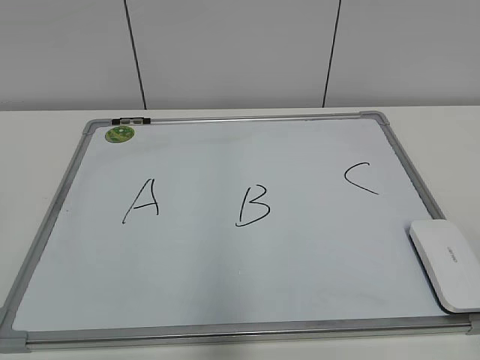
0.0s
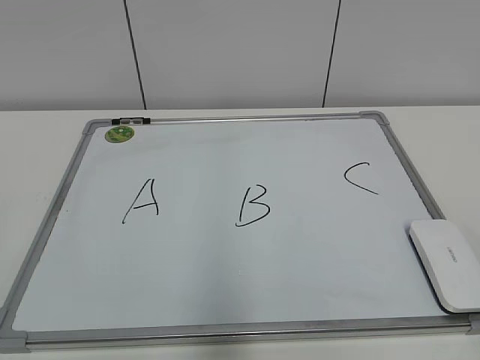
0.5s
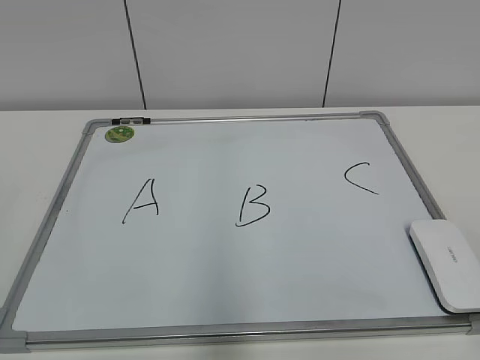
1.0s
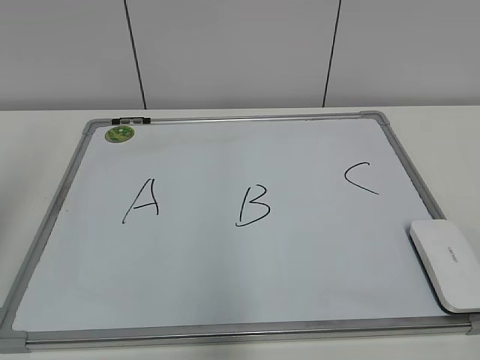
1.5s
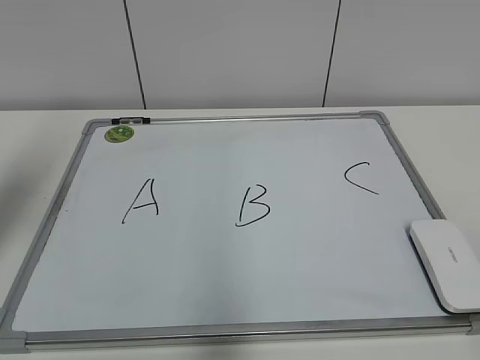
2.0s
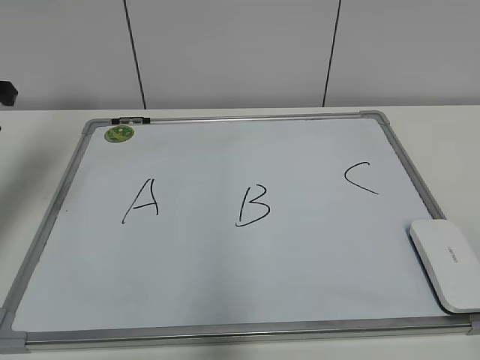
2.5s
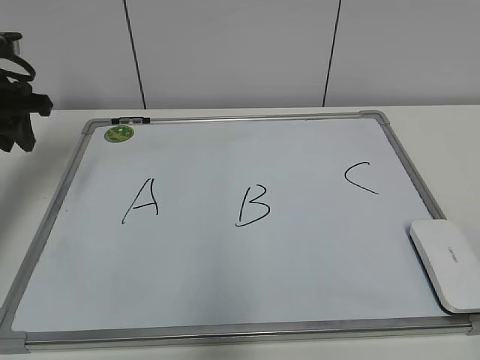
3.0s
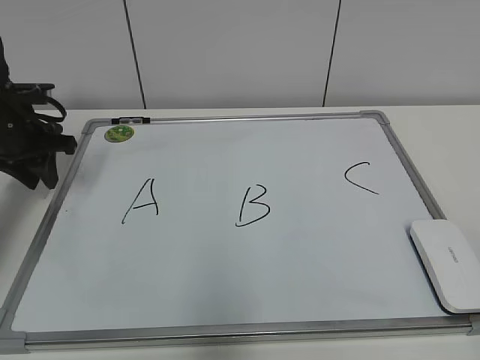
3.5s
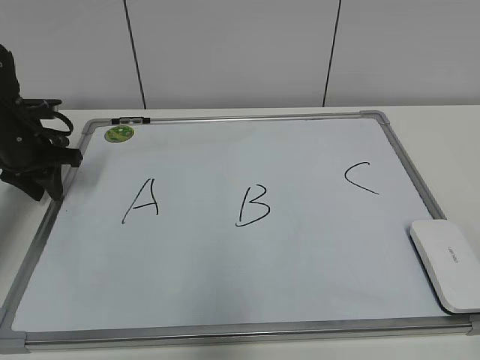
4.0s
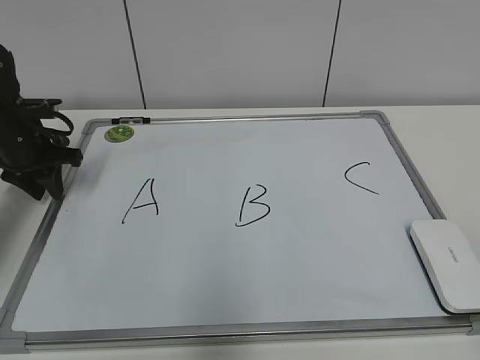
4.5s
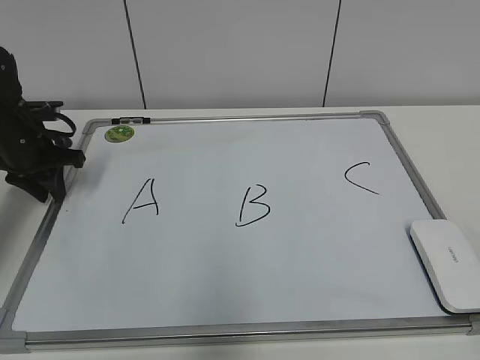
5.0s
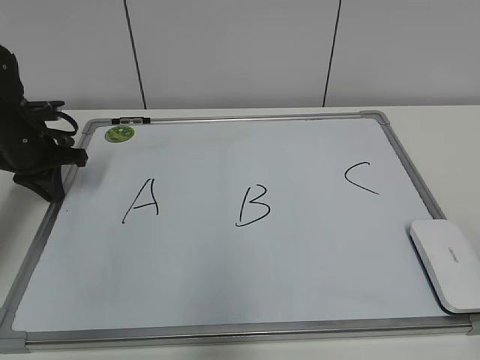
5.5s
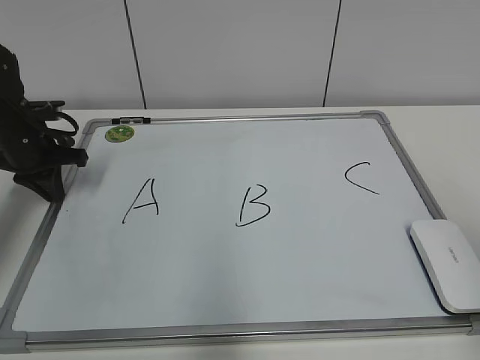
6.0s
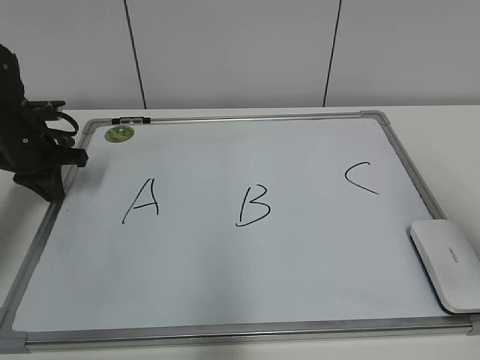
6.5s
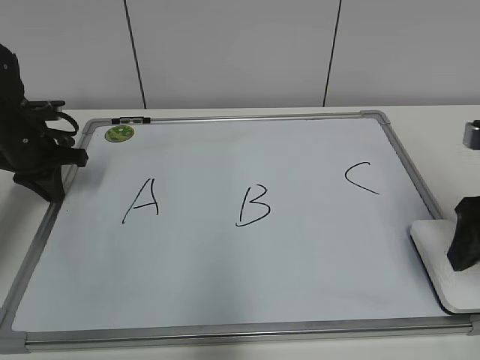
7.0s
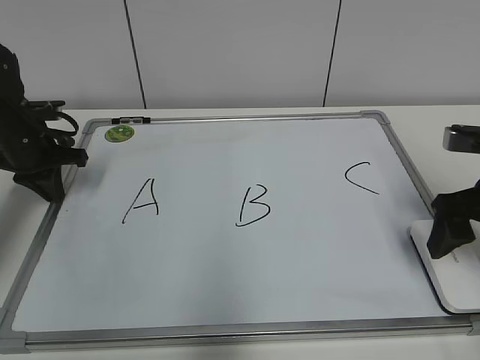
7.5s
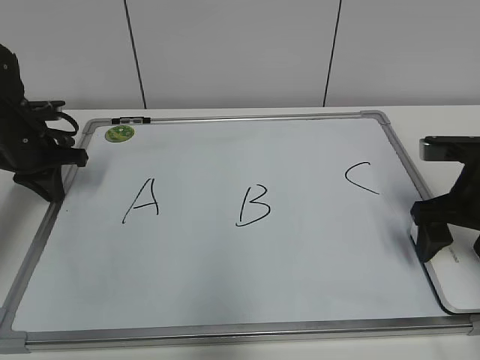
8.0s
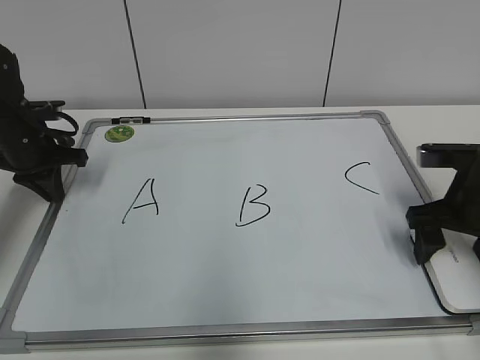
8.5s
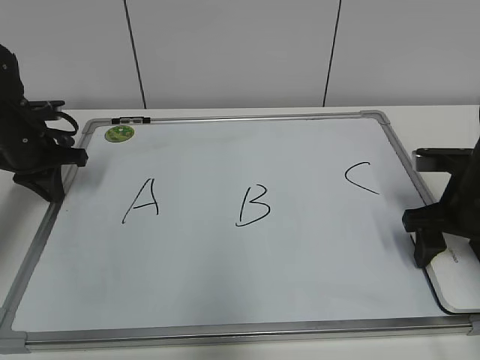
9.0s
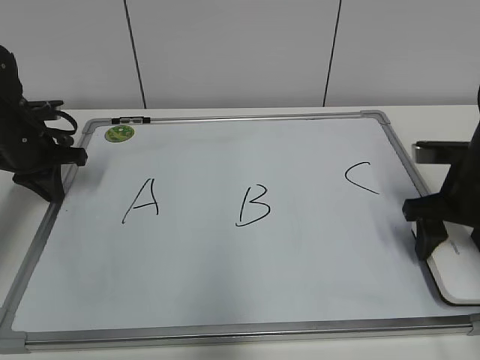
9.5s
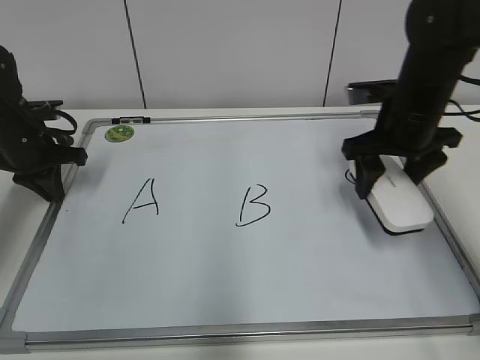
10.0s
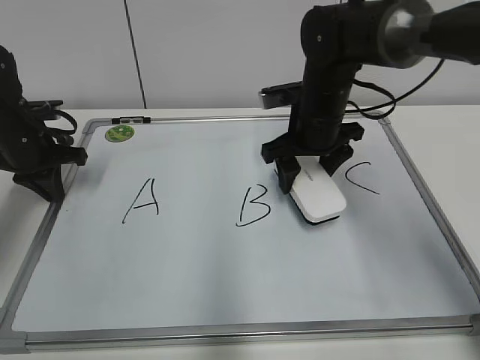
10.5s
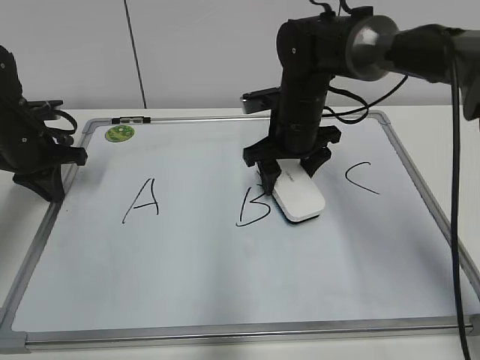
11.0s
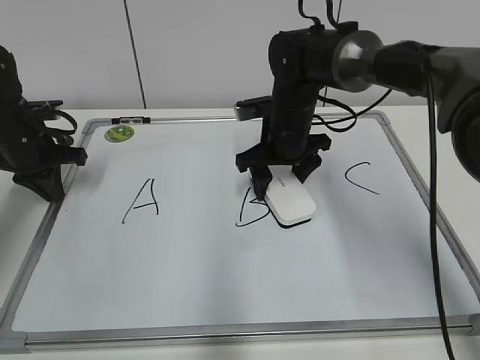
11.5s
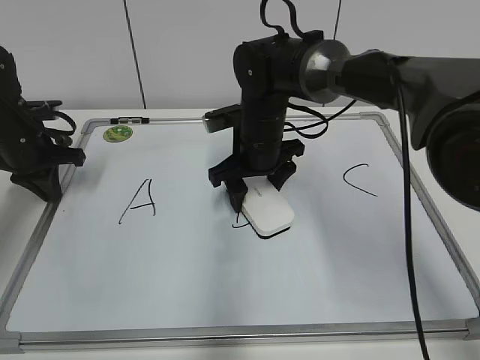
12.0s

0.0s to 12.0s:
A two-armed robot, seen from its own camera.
Task of the whole recording: pick up the eraser on the blackboard and erase the letter "B".
Step, 0.0s to 5.5s: Hold the drawing board steady with your left hand.
Step, 6.0s to 9.0s: Grab the eraser with your right hand.
2.0s to 4.0s: The left gripper shifts approximately 20 cm downward and forward.
4.0s to 6.0s: The left gripper closes up.
6.0s to 8.0s: The right gripper is displaced forward and downward by roughly 25 cm, and opens its fingers.
8.0s to 10.0s: The right gripper is displaced forward and to the left by about 10 cm, and closes its fingers.
10.0s to 12.0s: The right gripper heads to the left, covering some 20 cm.

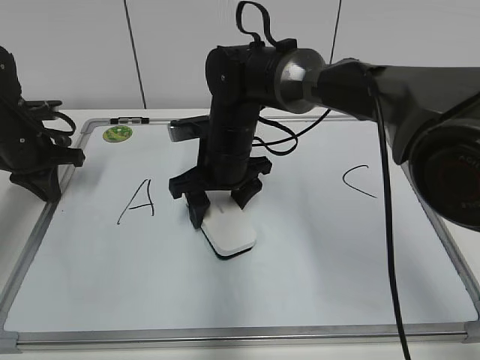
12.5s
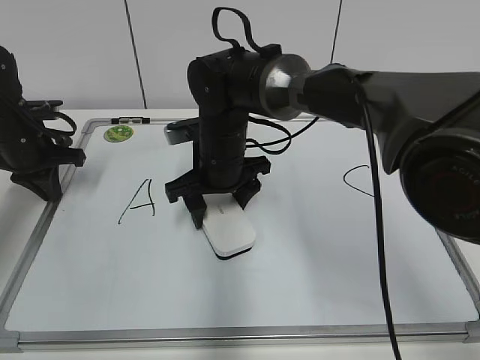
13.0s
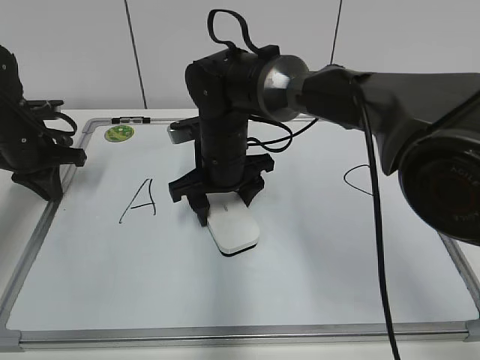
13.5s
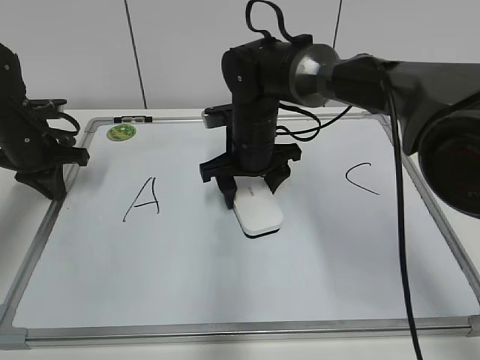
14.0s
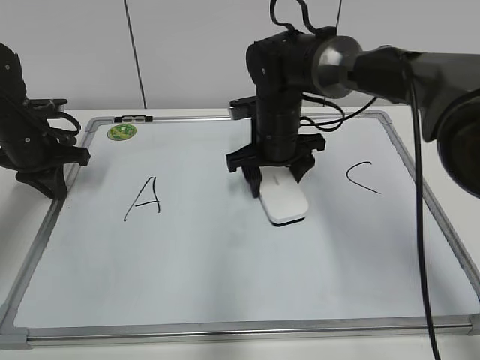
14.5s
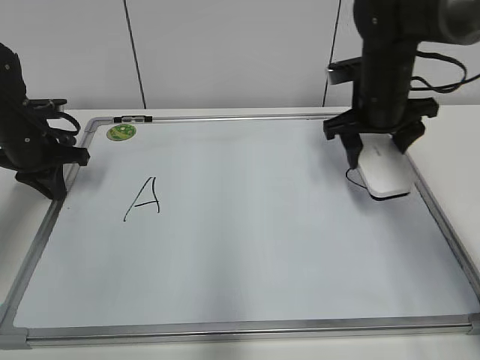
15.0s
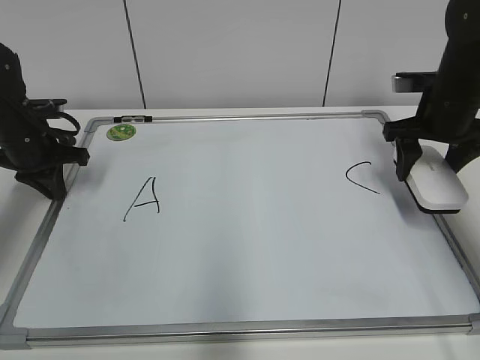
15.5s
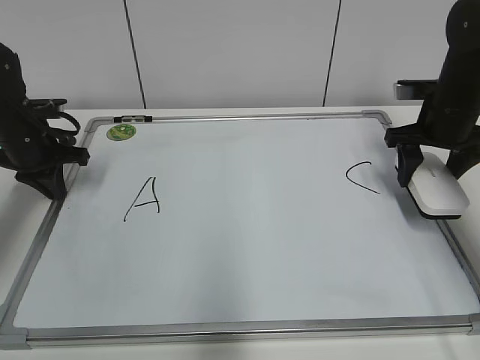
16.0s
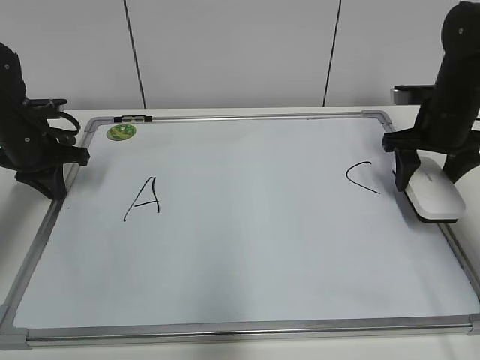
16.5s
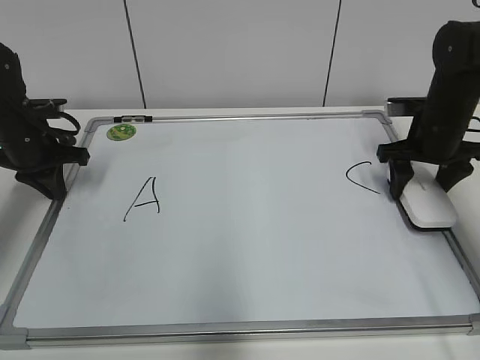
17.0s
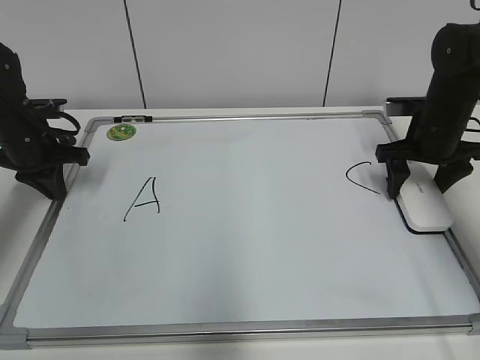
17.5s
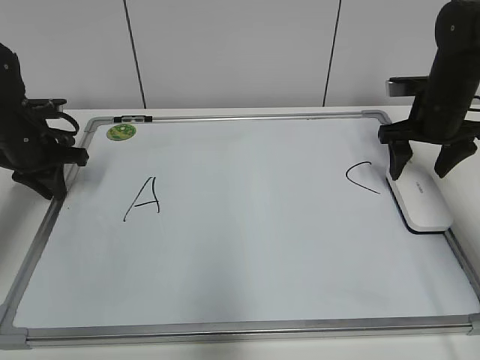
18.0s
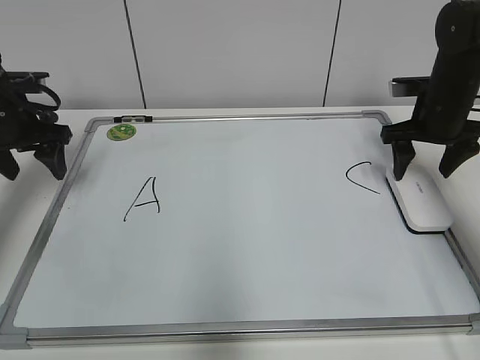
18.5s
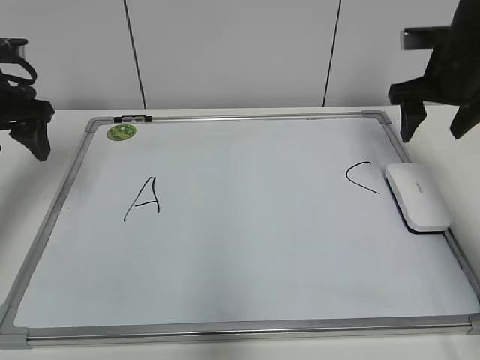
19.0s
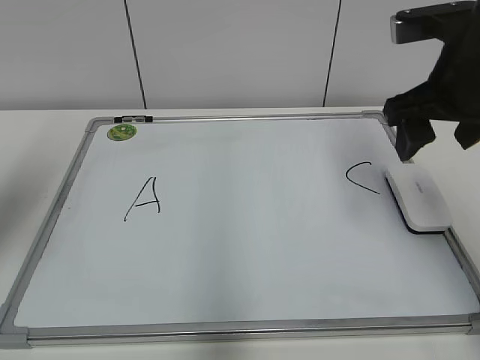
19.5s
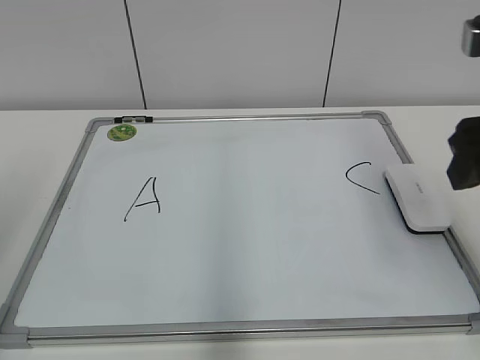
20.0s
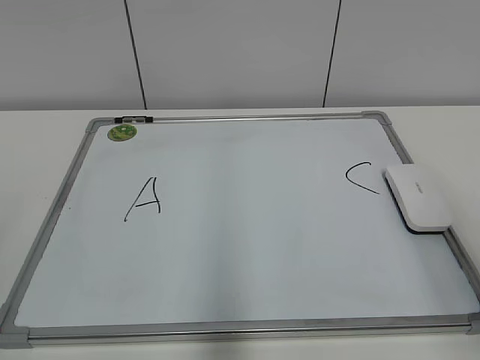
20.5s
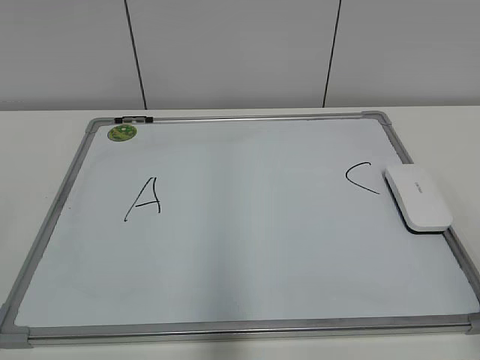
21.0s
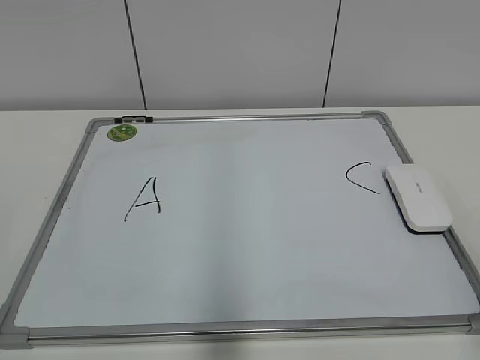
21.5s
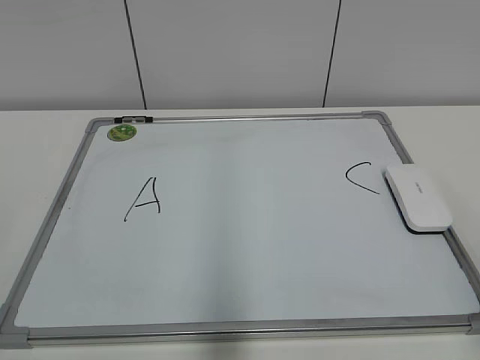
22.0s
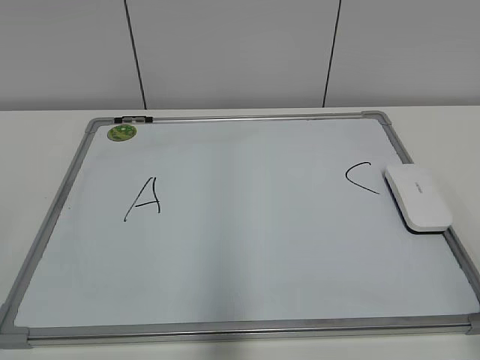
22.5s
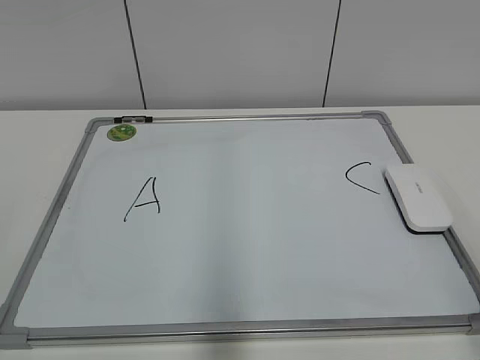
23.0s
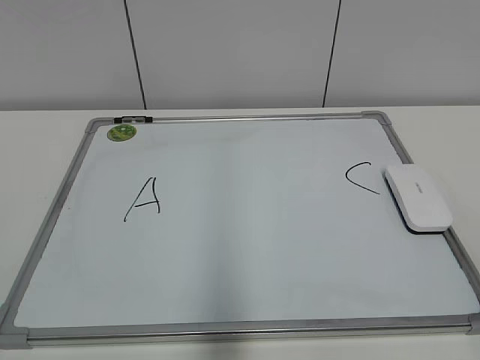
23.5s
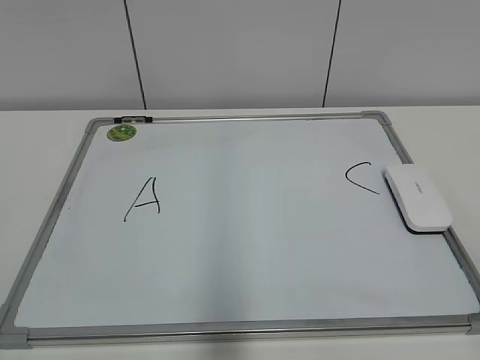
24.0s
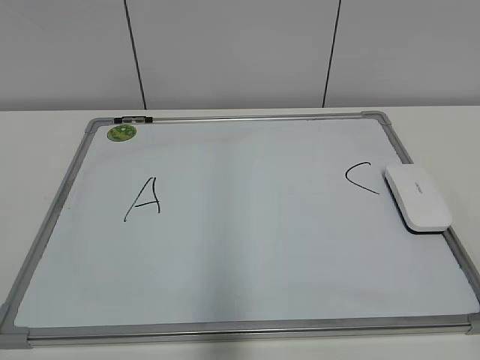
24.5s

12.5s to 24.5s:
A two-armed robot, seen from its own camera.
Task of the whole recording: pick up the eraser on the blackboard and erase the letter "B".
Step, 14.5s to 17.5s: Put down the eraser with your right hand.
12.5s to 14.5s: The right gripper heads to the right, covering roughly 5 cm.
14.5s to 16.5s: The right gripper shifts roughly 20 cm to the right.
16.5s to 18.5s: The left gripper opens up. Meanwhile the right gripper opens its fingers.
18.5s to 20.5s: Both grippers move backward, about 35 cm.
